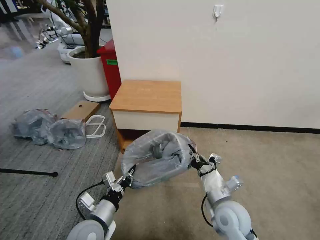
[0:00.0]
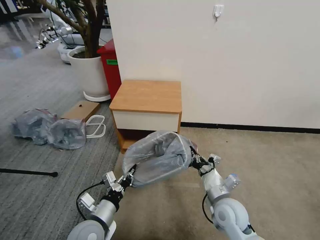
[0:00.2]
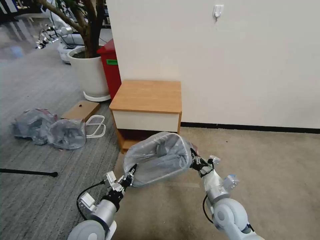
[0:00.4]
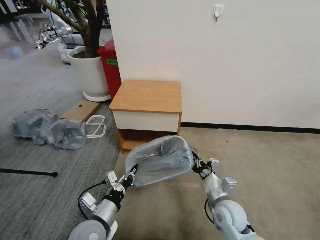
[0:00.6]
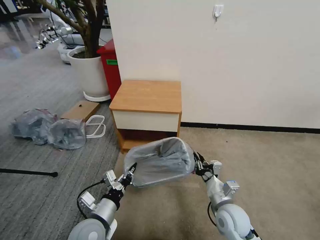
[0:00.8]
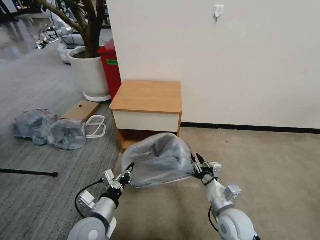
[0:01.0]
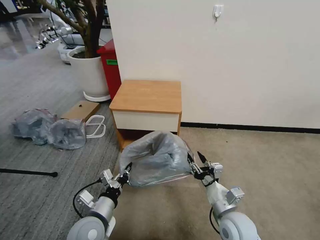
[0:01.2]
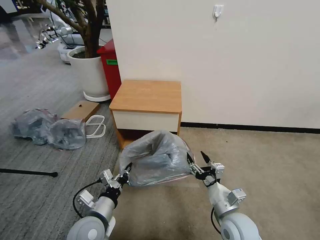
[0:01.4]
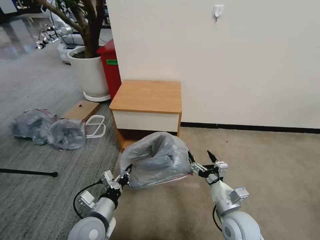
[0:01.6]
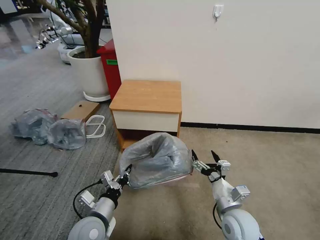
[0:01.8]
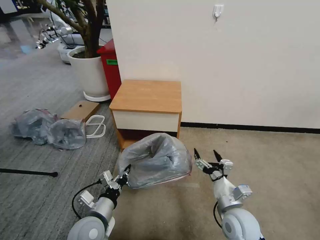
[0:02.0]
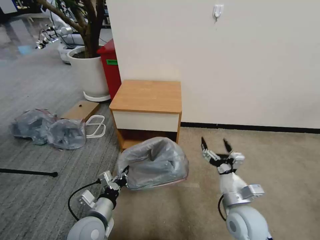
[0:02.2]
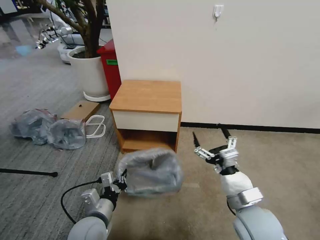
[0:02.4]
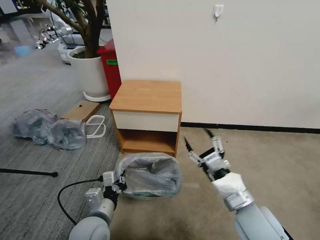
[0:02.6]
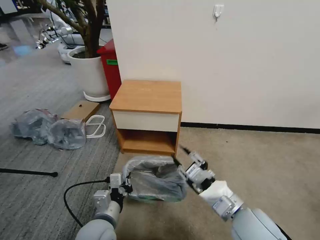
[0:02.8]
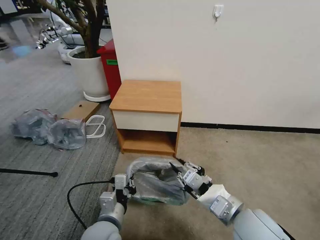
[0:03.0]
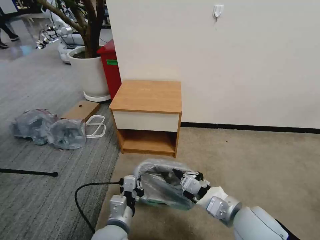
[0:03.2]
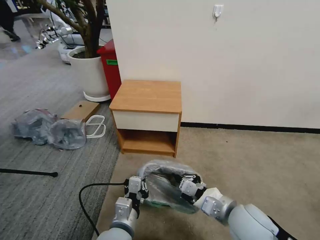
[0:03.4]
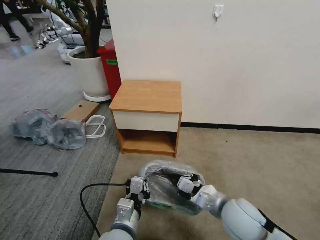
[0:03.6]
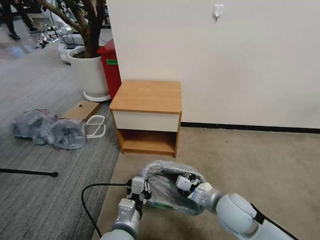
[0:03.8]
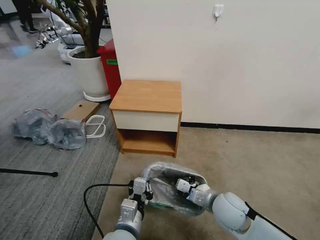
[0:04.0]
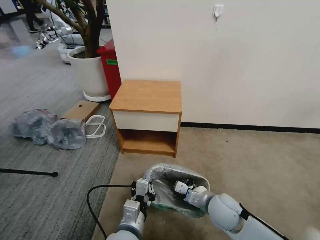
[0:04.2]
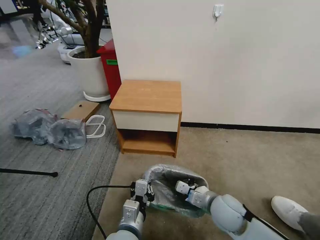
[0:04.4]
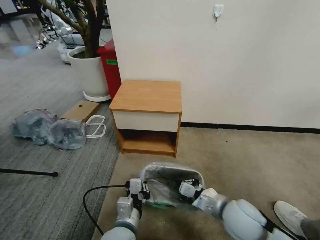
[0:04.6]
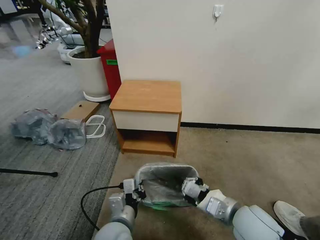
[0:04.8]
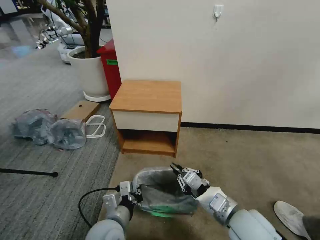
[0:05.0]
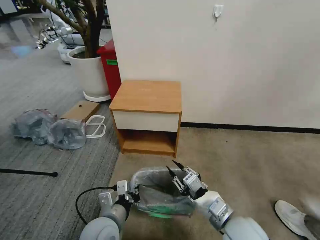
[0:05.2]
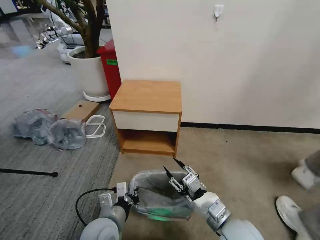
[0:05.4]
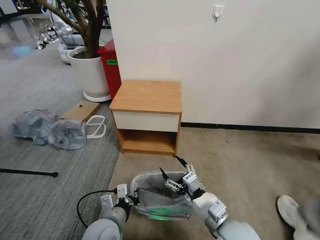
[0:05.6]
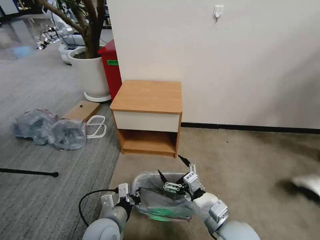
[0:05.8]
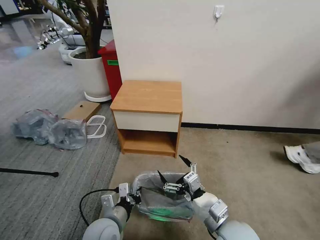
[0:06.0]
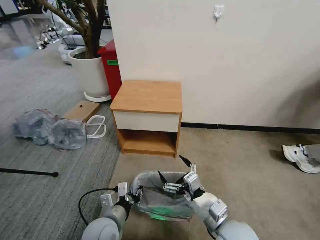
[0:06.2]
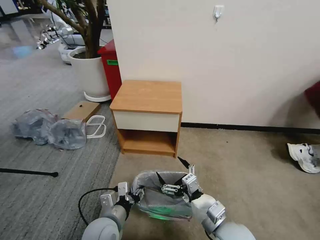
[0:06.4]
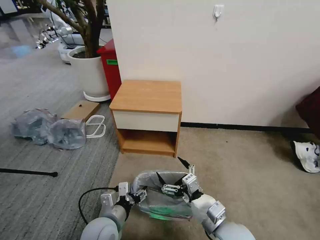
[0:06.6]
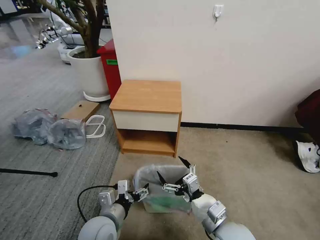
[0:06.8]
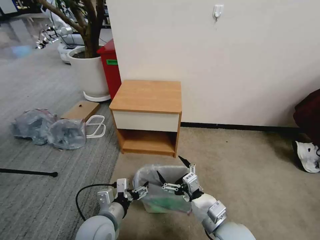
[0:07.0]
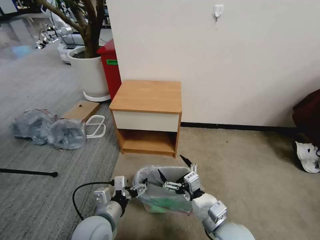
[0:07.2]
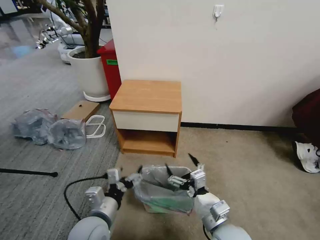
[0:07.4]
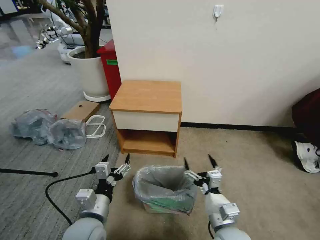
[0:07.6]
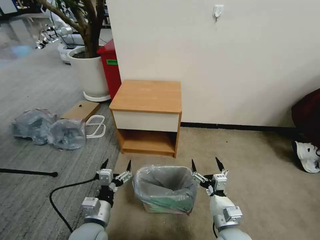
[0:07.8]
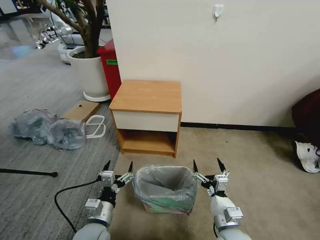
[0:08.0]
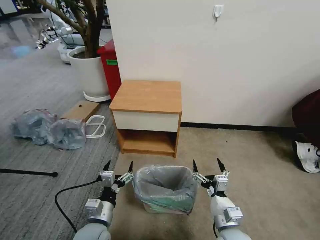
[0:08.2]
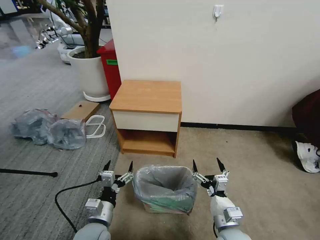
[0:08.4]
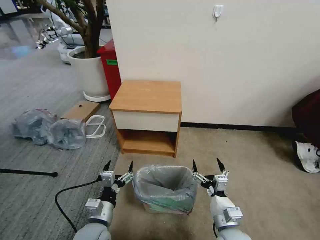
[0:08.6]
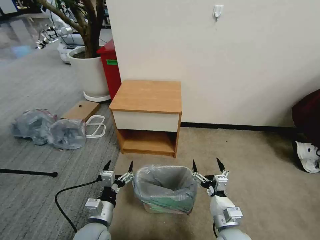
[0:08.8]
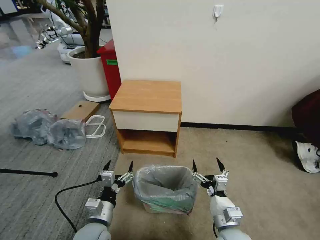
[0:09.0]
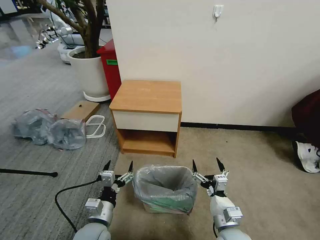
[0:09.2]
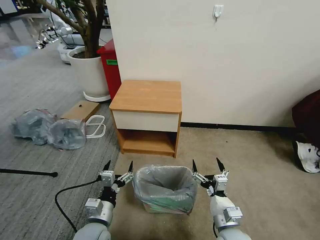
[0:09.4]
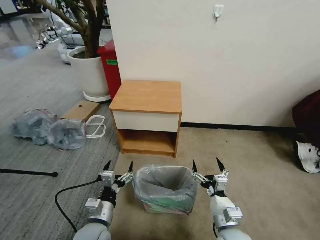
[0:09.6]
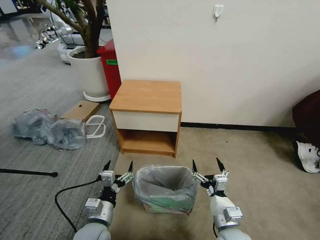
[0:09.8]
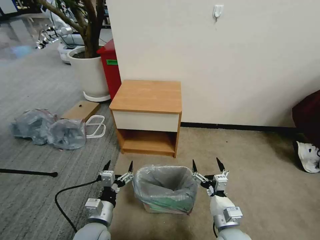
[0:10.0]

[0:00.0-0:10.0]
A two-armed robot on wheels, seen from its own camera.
Task of the whole recording: Pick up the garbage bag from the table and place it over the trash can.
0:00.0 to 0:01.4: The right gripper opens.
0:01.4 to 0:02.8: The right gripper travels upward by approximately 10 cm, and closes its fingers.
0:02.8 to 0:04.2: The left gripper shifts some 10 cm to the right. Meanwhile the right gripper travels downward and forward by roughly 10 cm, and closes.
0:04.2 to 0:05.8: The left gripper is displaced to the left by roughly 5 cm. Meanwhile the right gripper travels backward by approximately 10 cm, and opens up.
0:05.8 to 0:07.2: The left gripper opens up.
0:07.2 to 0:08.6: Both grippers travel together downward, approximately 5 cm.
0:08.6 to 0:10.0: Both grippers stay put.

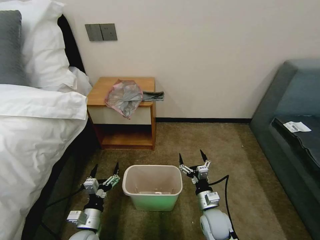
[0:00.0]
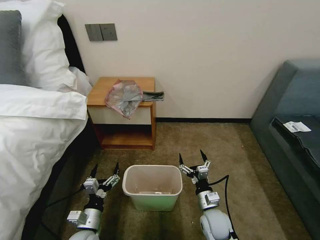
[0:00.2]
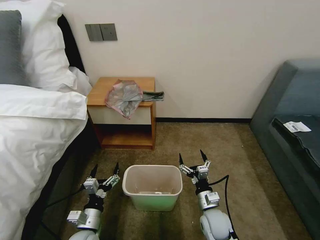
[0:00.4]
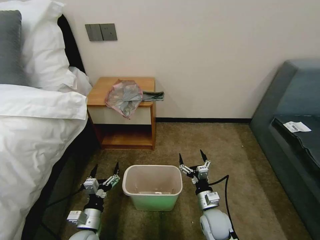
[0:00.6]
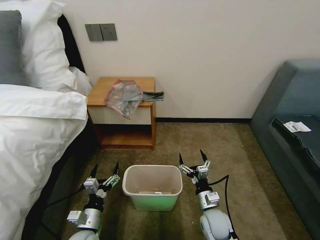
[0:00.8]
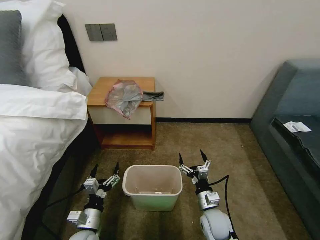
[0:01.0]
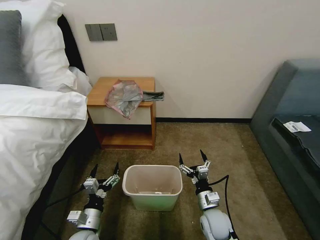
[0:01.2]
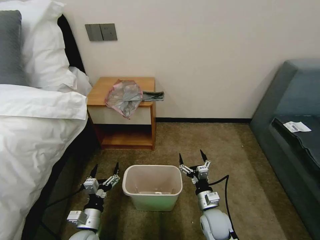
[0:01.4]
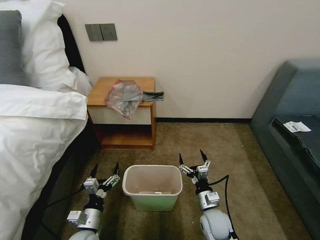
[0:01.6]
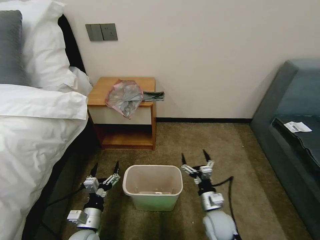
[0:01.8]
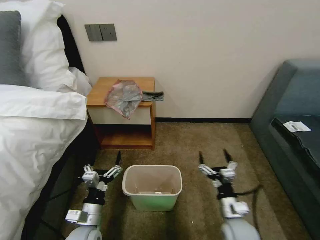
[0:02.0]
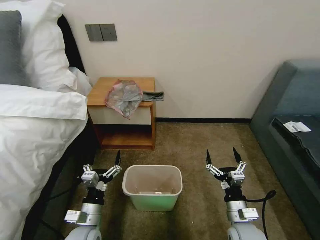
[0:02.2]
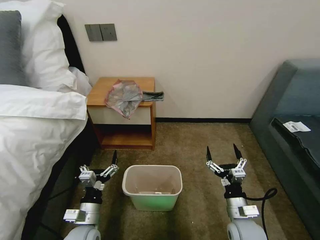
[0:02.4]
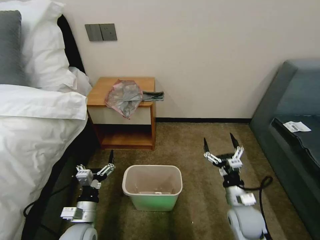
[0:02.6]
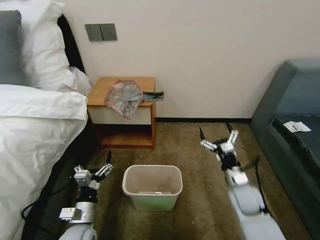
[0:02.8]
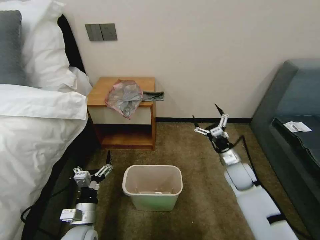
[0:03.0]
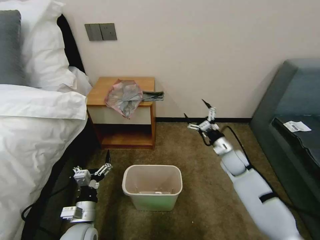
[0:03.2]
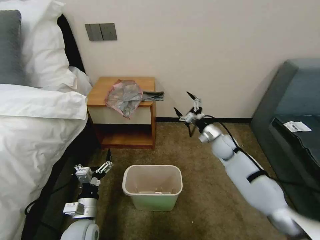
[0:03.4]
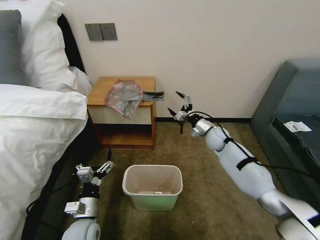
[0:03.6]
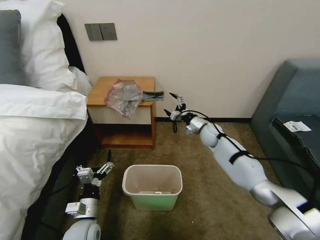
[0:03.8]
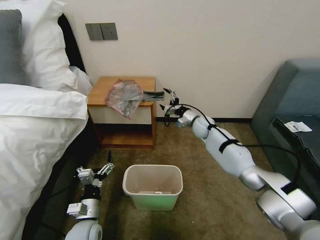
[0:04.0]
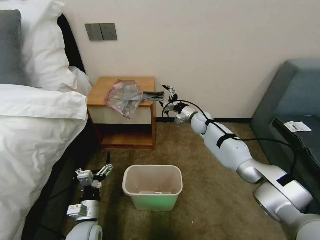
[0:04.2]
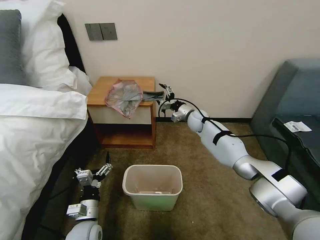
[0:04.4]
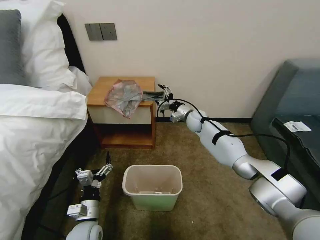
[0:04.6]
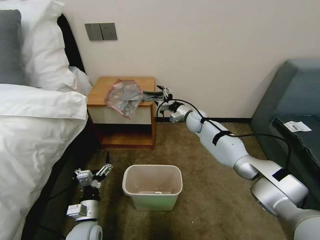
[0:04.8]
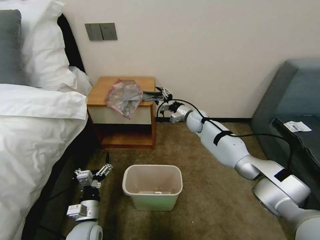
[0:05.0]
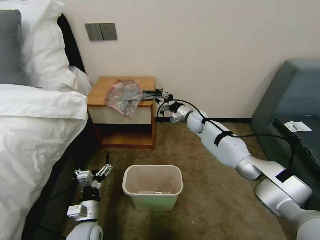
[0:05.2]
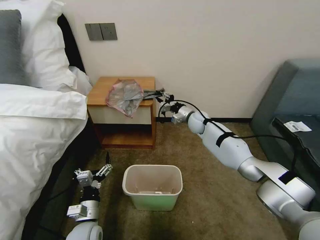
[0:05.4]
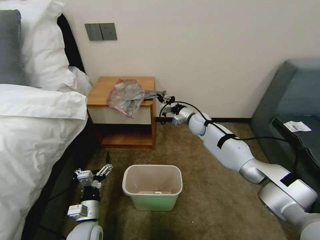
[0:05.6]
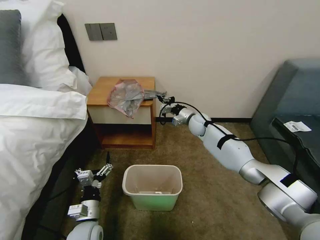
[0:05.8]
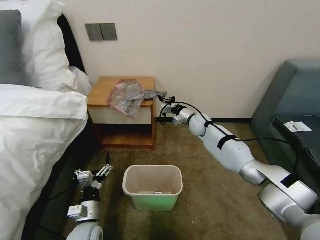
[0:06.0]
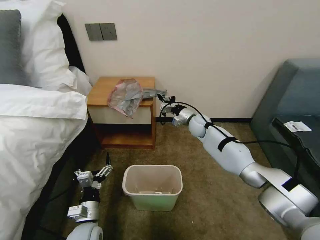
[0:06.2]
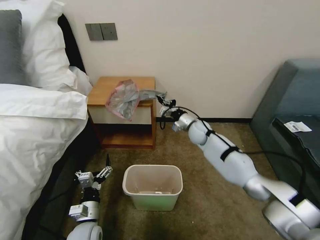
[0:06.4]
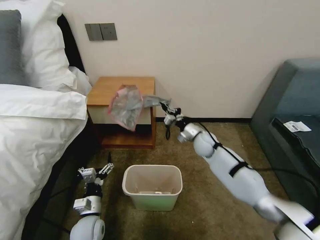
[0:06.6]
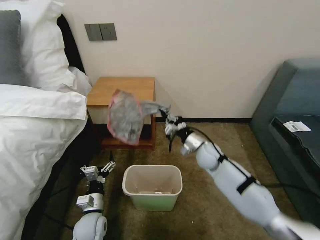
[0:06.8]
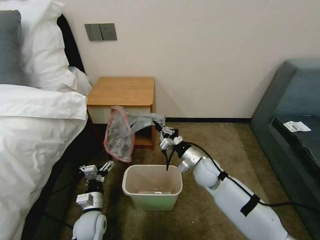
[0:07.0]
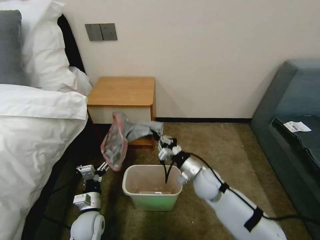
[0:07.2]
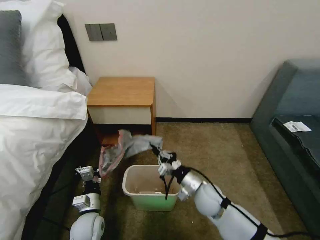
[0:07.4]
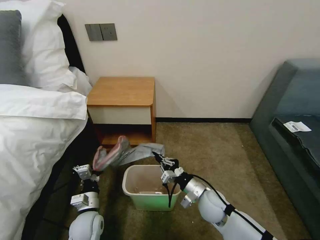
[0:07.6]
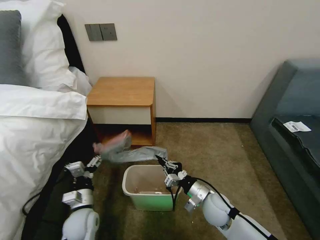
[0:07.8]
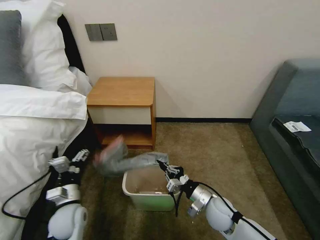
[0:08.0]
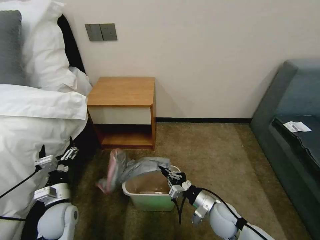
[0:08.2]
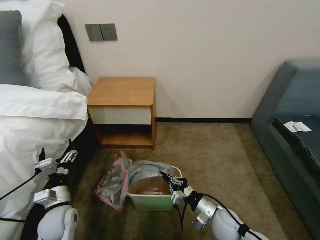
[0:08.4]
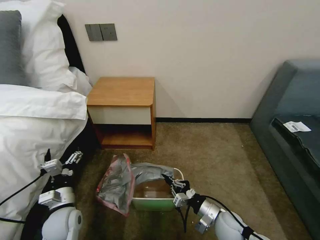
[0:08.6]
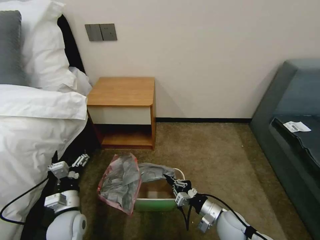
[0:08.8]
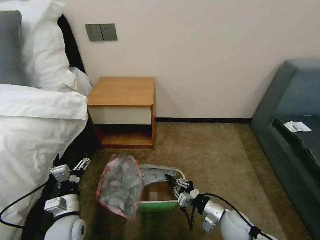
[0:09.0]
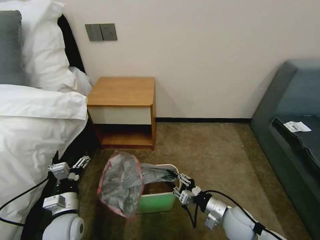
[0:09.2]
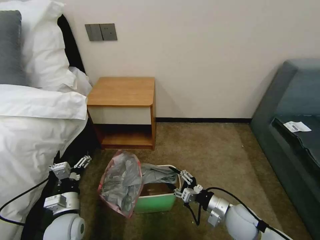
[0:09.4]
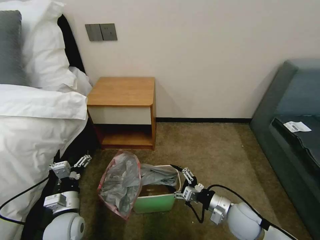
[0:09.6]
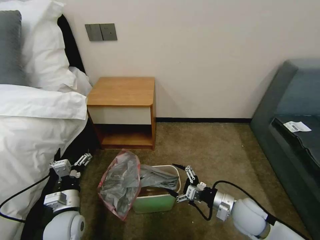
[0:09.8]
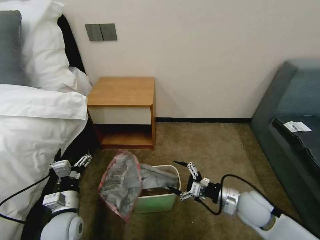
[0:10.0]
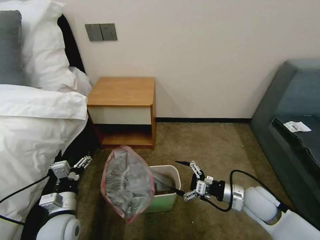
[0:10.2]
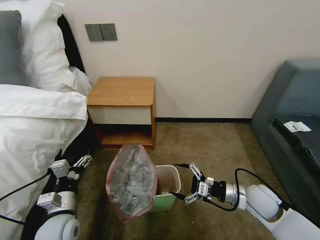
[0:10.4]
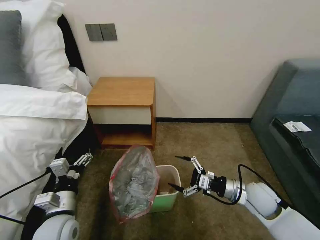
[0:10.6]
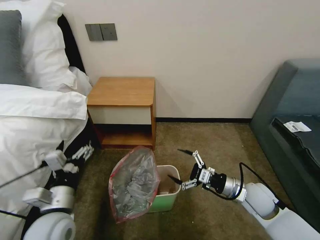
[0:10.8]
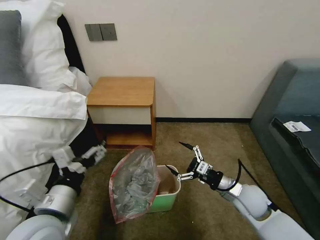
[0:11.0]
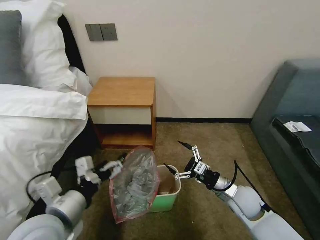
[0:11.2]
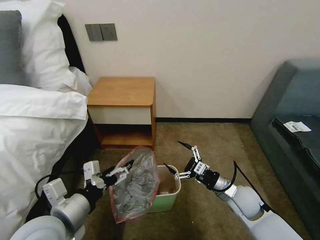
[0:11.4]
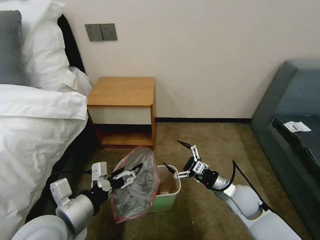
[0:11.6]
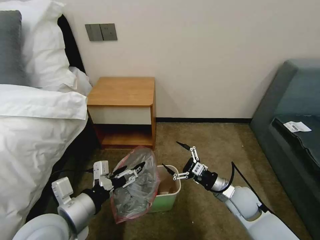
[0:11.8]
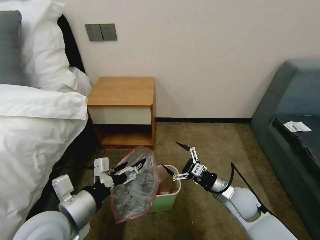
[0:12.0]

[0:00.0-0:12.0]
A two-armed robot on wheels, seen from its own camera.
Task of the whole recording: Pick up the garbage bag from the table and place it over the trash can.
0:01.6 to 0:03.0: The right gripper shifts approximately 20 cm forward, to the right and upward.
0:03.0 to 0:04.4: The right gripper heads forward and to the left, covering roughly 25 cm.
0:04.4 to 0:06.0: The right gripper closes its fingers.
0:06.0 to 0:07.6: The right gripper goes approximately 30 cm backward.
0:07.6 to 0:09.0: The left gripper ends up about 5 cm from where it was. The right gripper is displaced to the right and backward by roughly 10 cm.
0:09.0 to 0:10.4: The right gripper goes approximately 10 cm upward, to the right and forward, and opens its fingers.
0:10.4 to 0:12.0: The right gripper shifts by roughly 5 cm. The left gripper travels upward by some 15 cm.
